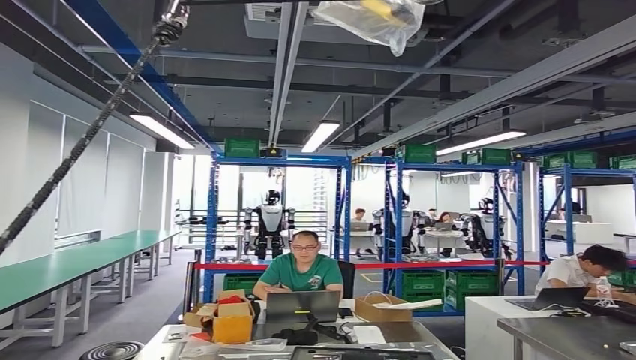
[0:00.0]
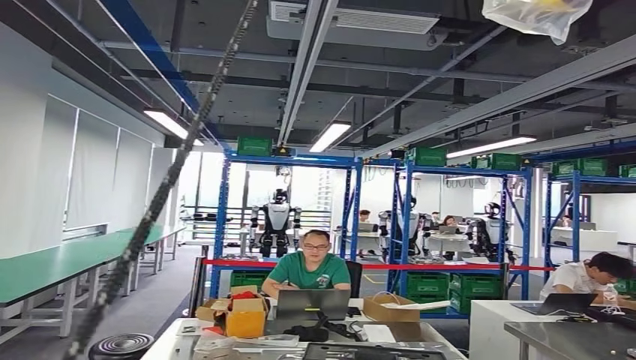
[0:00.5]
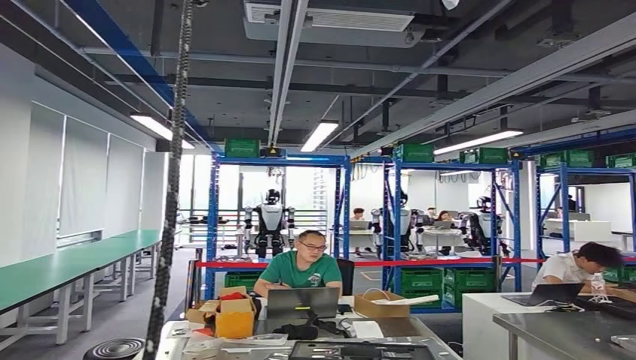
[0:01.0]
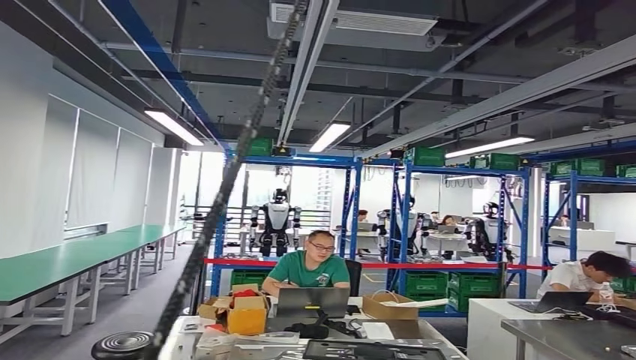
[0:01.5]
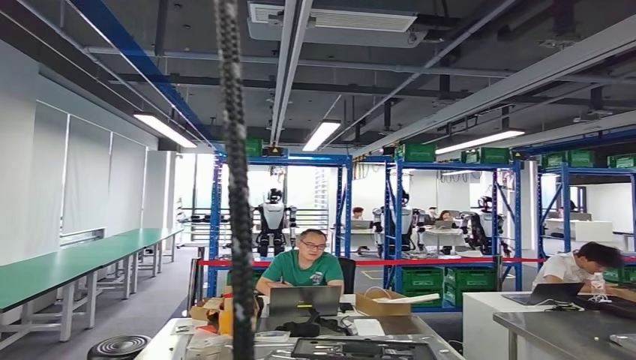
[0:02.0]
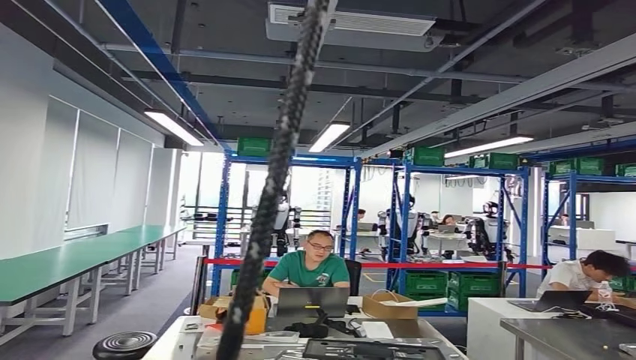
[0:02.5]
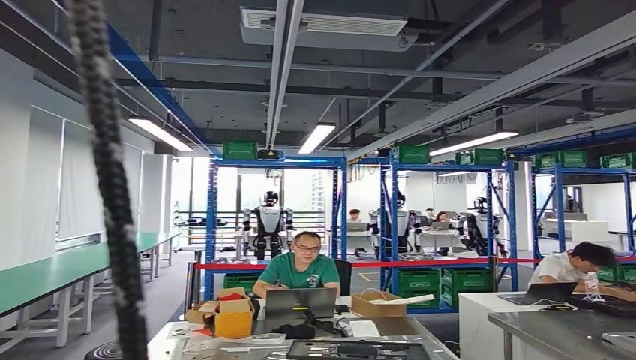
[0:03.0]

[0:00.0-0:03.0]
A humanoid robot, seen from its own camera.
Step, 0:00.0 to 0:03.0: Return to the initial position at the workbench.
